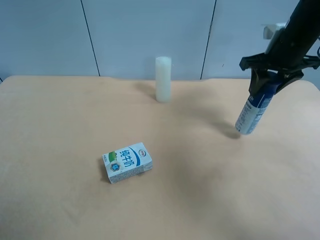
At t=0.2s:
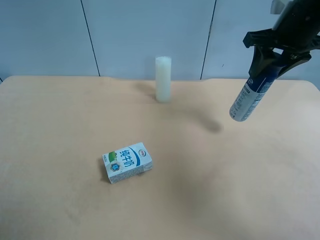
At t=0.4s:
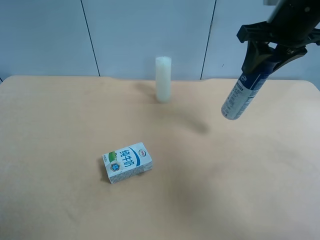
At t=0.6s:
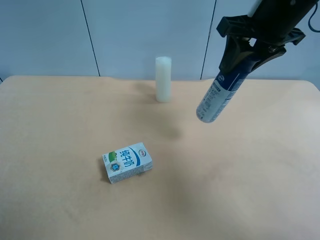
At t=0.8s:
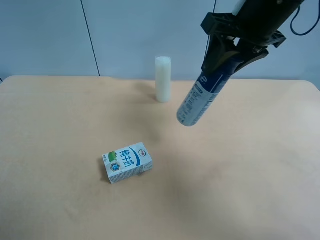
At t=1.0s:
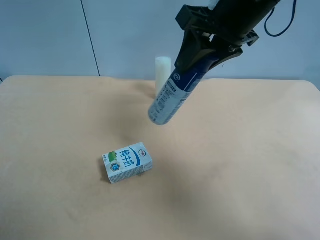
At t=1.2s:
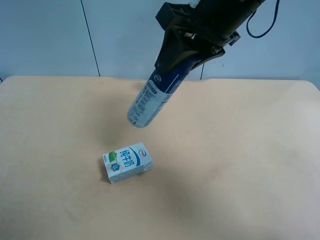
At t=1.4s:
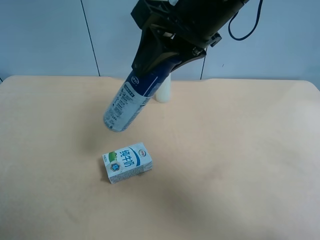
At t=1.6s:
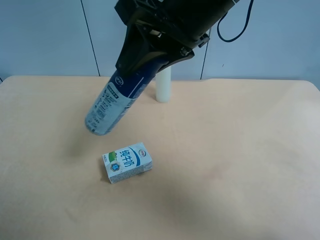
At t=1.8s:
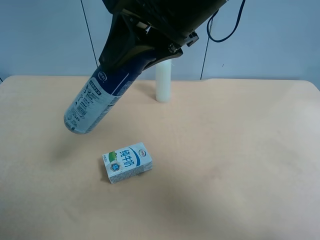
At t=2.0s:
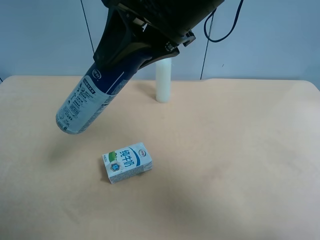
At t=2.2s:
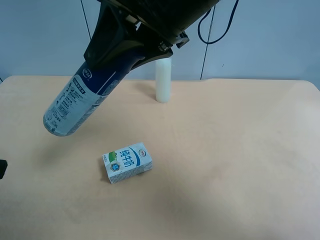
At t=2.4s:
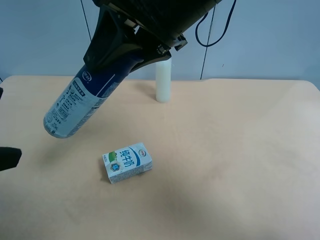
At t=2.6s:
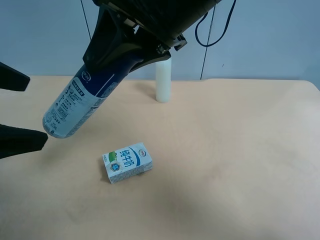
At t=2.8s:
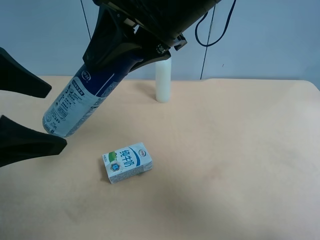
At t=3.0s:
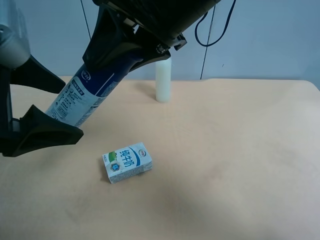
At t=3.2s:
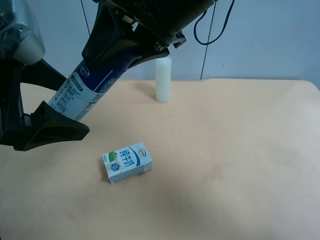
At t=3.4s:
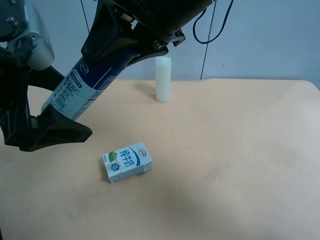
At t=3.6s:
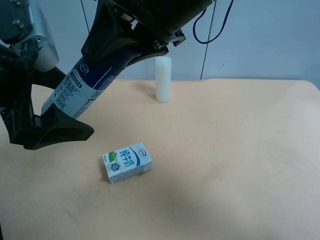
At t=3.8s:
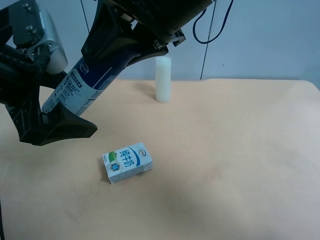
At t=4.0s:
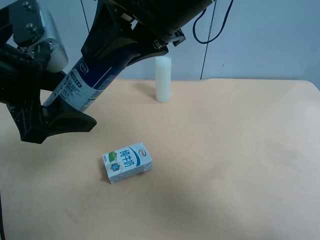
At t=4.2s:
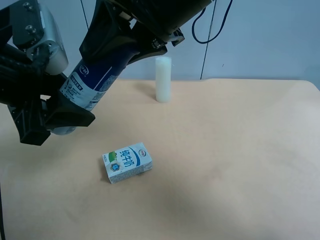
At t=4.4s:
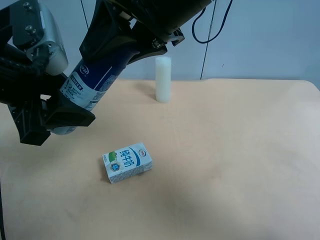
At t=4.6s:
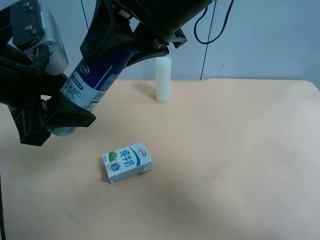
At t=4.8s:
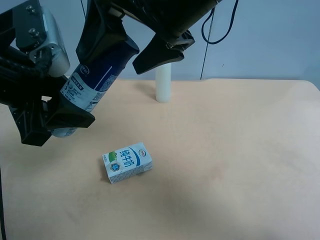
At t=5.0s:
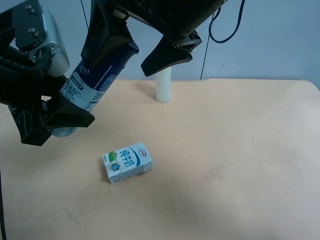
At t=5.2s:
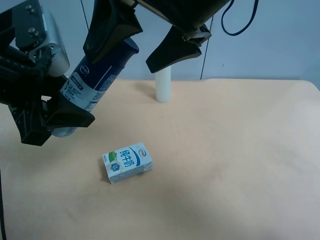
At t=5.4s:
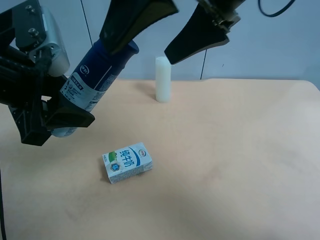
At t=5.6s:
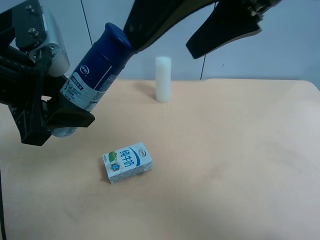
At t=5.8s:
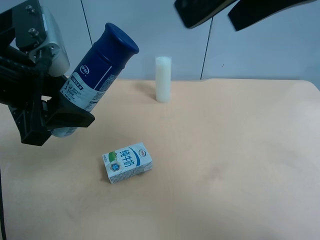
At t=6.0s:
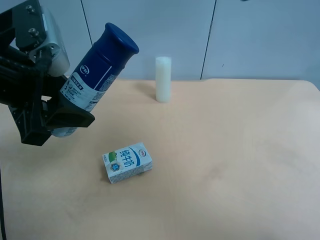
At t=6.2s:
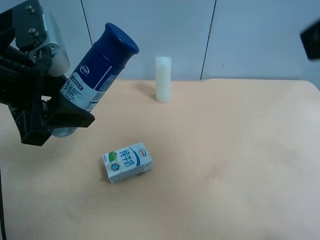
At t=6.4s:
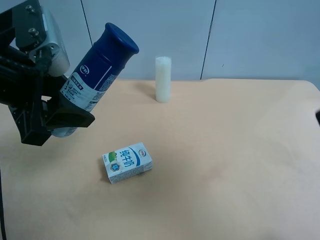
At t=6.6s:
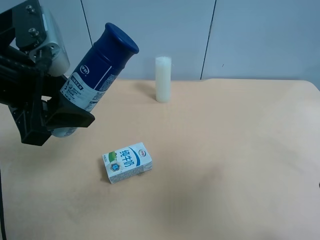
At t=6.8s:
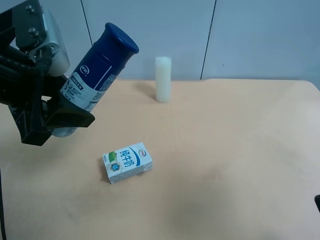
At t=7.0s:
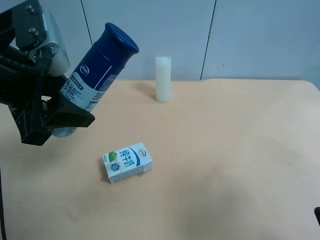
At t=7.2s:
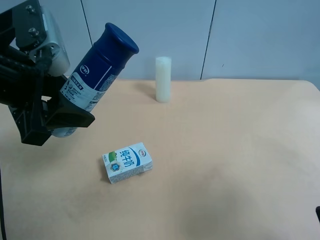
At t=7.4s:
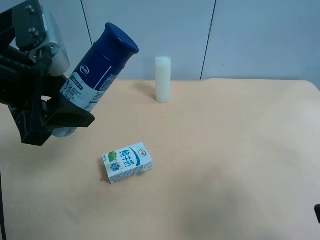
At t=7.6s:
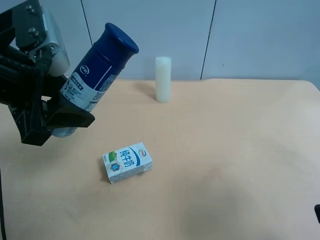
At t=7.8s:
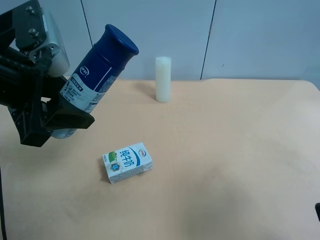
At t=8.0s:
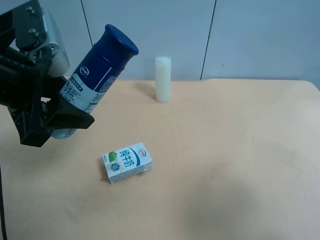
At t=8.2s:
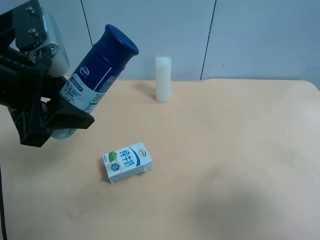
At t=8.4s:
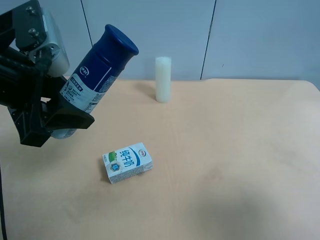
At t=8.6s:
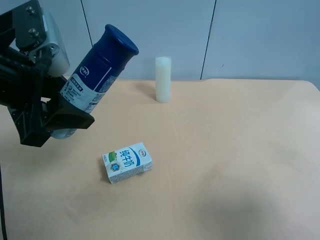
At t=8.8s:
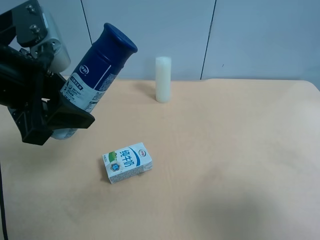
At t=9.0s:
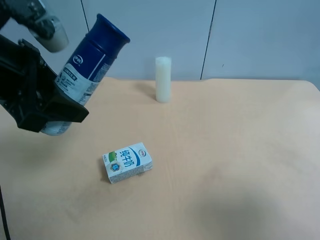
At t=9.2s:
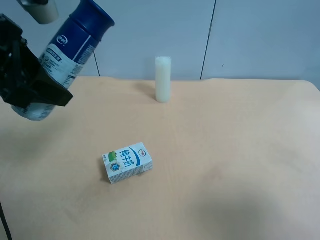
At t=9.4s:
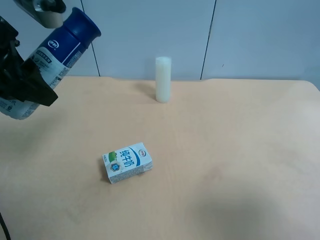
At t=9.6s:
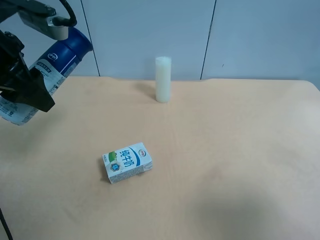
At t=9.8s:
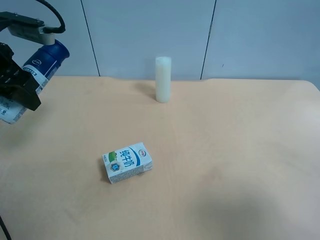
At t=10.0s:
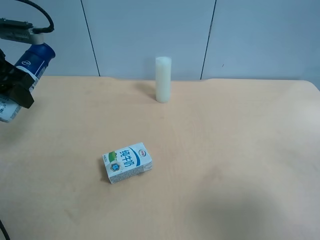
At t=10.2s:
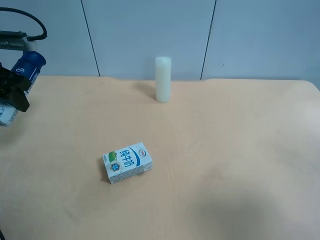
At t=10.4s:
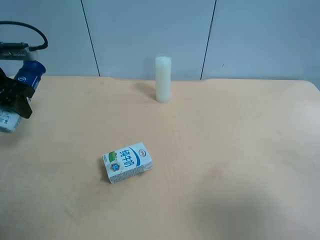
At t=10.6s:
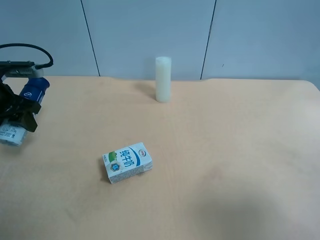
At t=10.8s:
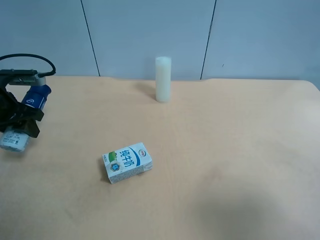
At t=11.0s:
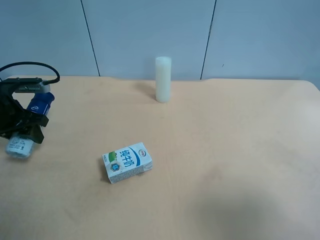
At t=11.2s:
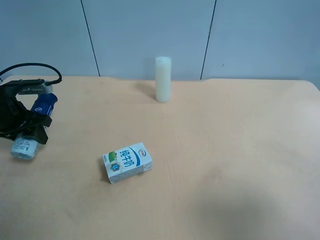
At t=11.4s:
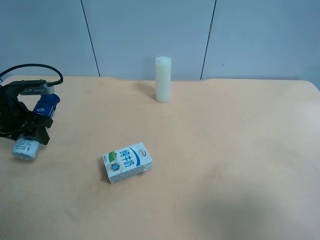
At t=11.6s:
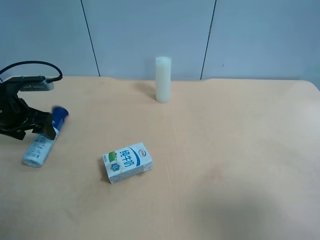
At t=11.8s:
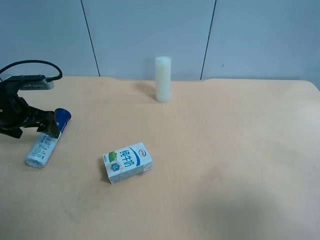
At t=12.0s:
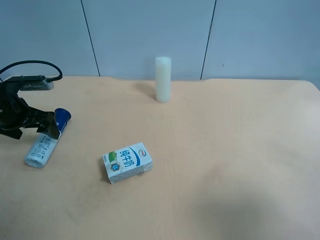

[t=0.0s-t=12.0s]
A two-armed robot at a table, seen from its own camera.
Task of the whole recording: use the right gripper to pick up the item and transfer it from the right gripper to the left gripper.
t=0.0s to t=1.6s: The left gripper ends up some 5 cm from where it was; the right gripper is displaced to the left, backward and upward by roughly 25 cm.
t=1.6s to t=3.0s: The left gripper goes about 15 cm forward and to the right.
t=3.0s to t=4.4s: The left gripper closes up.
t=4.4s to t=6.0s: The right gripper shifts roughly 20 cm to the right, backward and upward, and opens.
t=6.0s to t=7.6s: The right gripper travels downward, to the right and backward by roughly 25 cm.
t=9.0s to t=10.4s: The left gripper is displaced to the left, forward and downward by roughly 20 cm.
t=10.4s to t=12.0s: The left gripper heads downward, covering approximately 5 cm, and opens its fingers.

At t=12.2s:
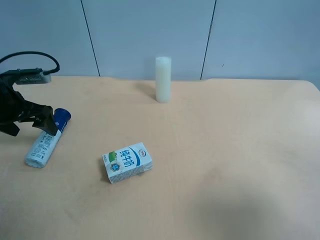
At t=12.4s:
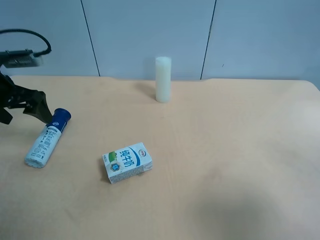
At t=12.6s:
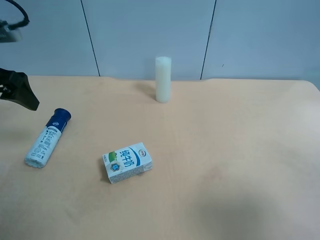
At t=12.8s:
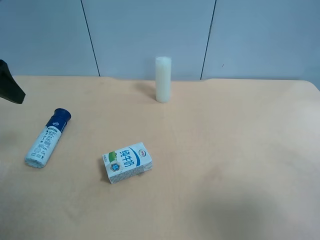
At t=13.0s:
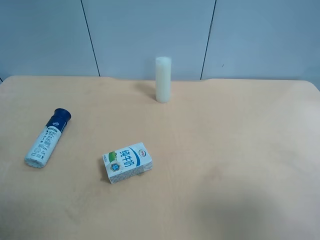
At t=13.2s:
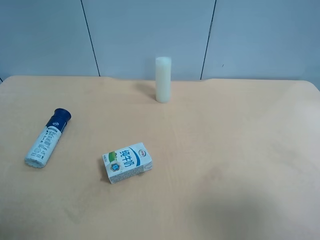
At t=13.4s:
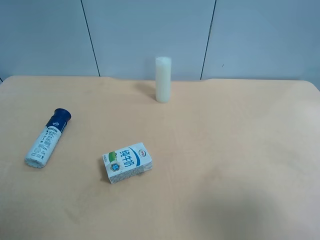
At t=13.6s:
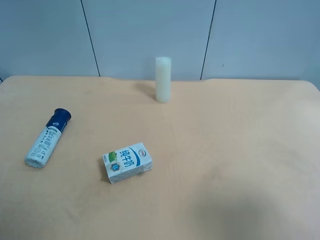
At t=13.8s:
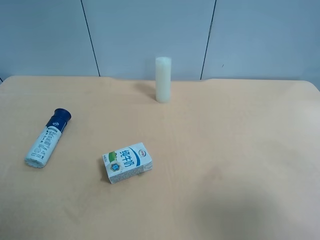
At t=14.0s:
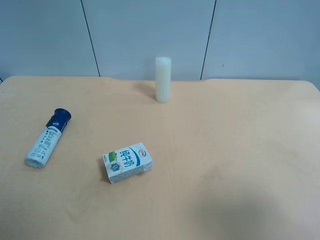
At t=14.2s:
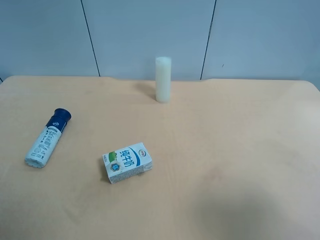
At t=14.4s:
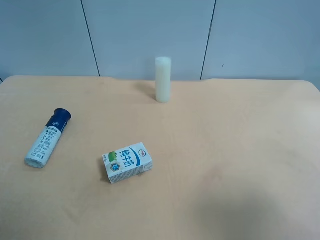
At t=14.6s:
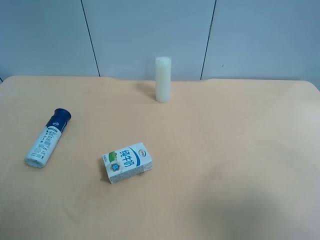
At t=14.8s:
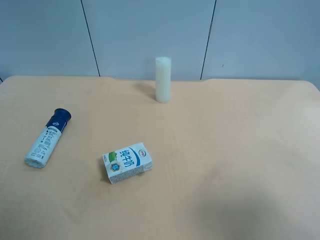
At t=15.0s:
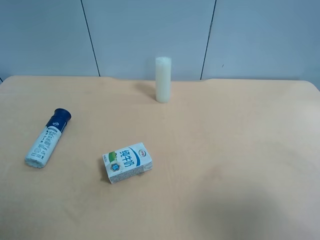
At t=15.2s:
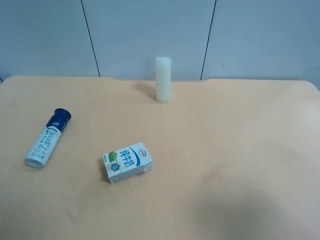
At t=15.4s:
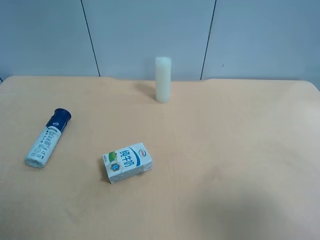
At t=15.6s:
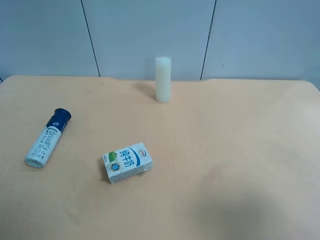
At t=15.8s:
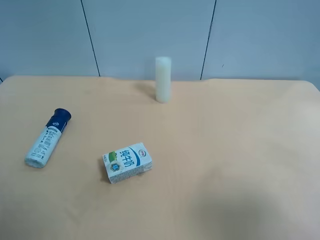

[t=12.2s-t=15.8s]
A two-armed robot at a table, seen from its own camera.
Task of the whole recording: use the right gripper to pick up the item and transfer it from the right gripper to the left gripper.
t=12.2s to t=14.0s: The left gripper is displaced backward by approximately 30 cm.
